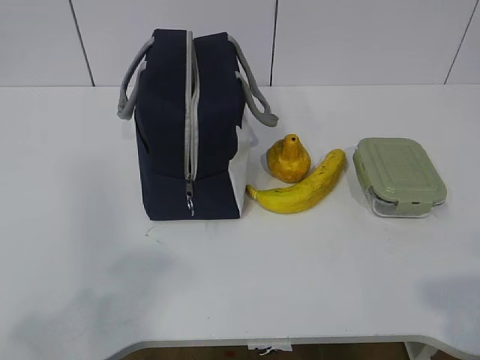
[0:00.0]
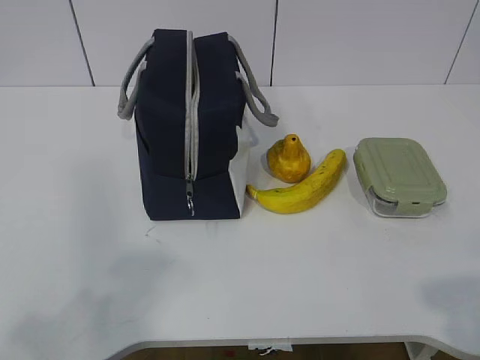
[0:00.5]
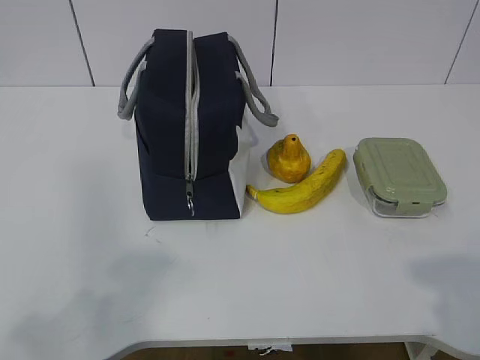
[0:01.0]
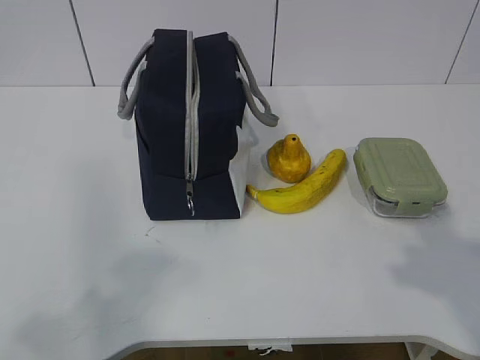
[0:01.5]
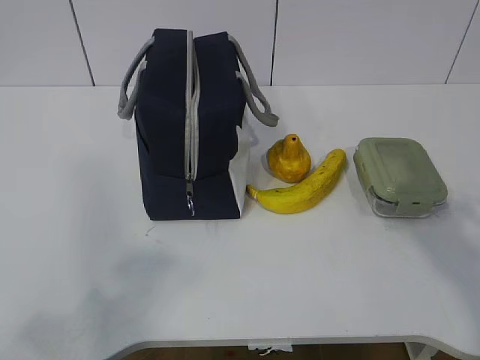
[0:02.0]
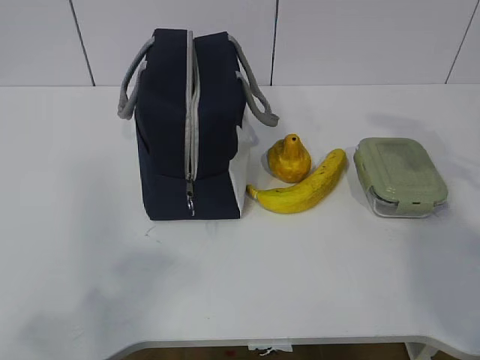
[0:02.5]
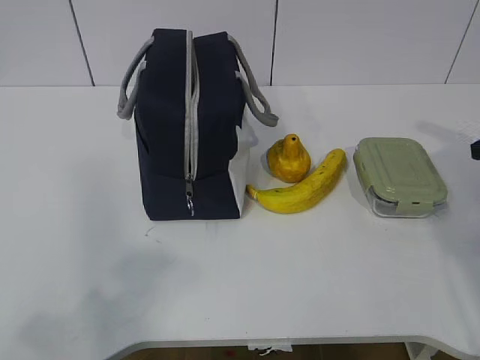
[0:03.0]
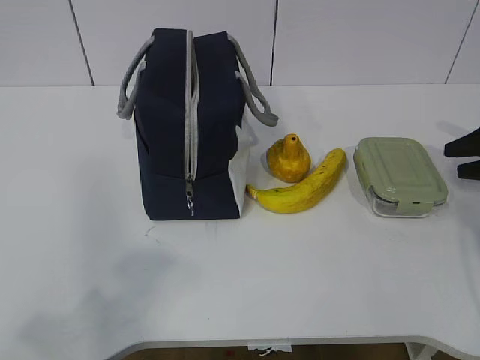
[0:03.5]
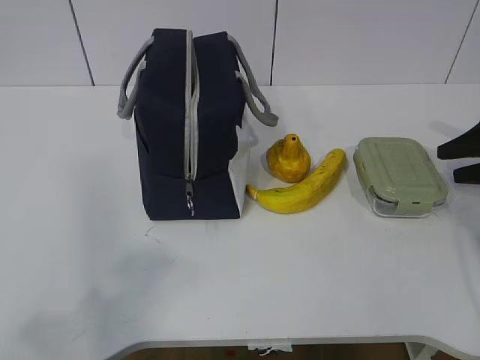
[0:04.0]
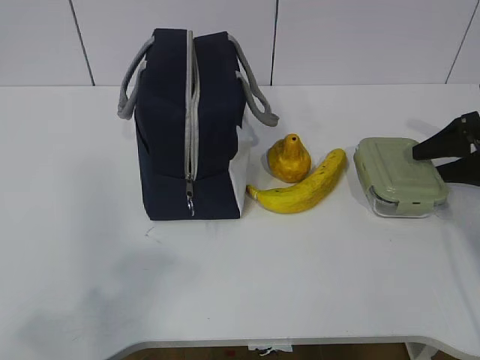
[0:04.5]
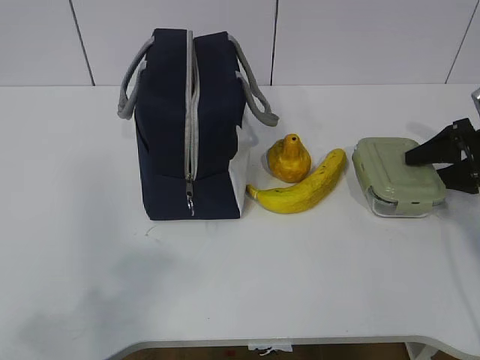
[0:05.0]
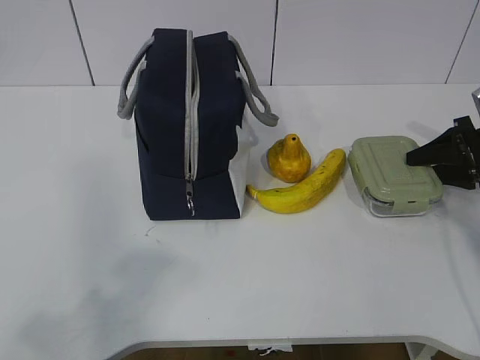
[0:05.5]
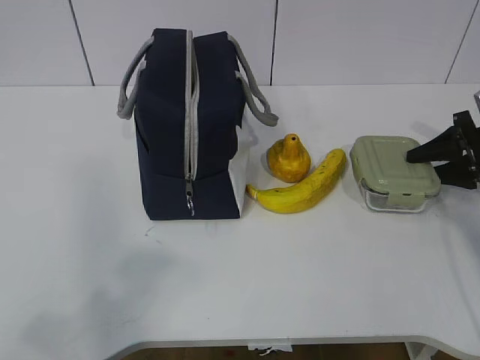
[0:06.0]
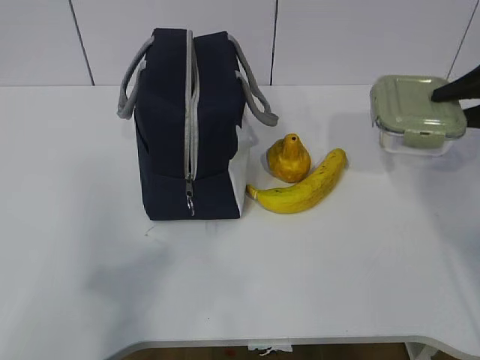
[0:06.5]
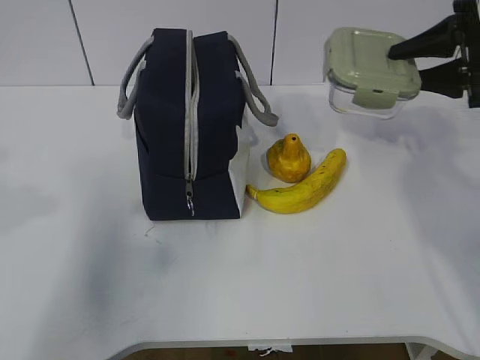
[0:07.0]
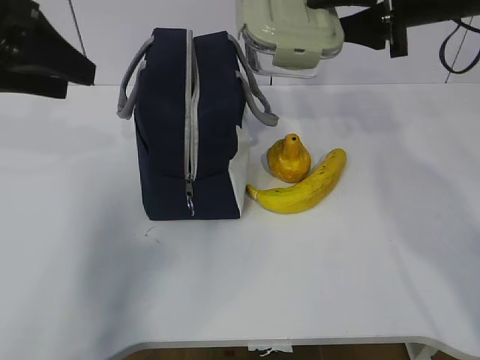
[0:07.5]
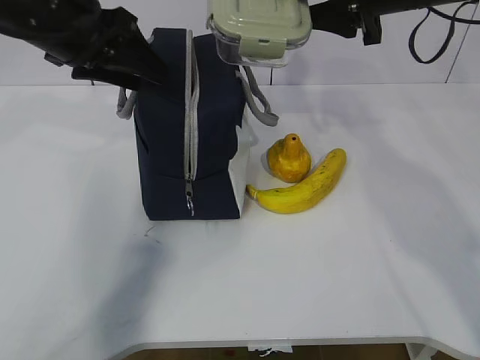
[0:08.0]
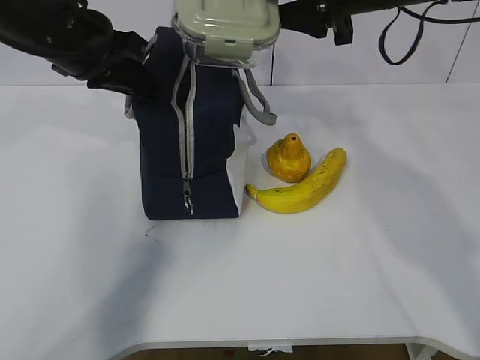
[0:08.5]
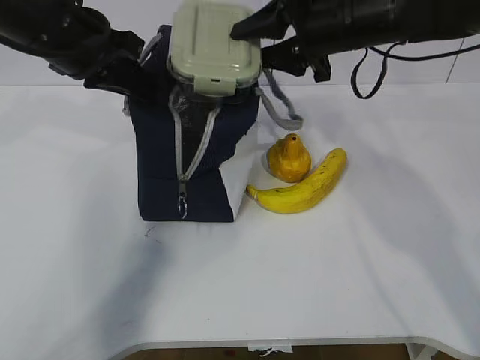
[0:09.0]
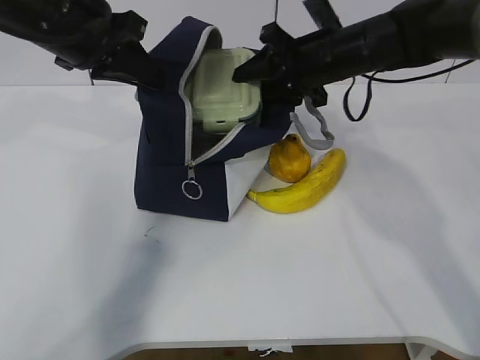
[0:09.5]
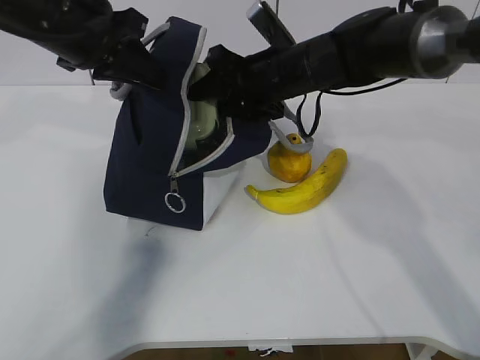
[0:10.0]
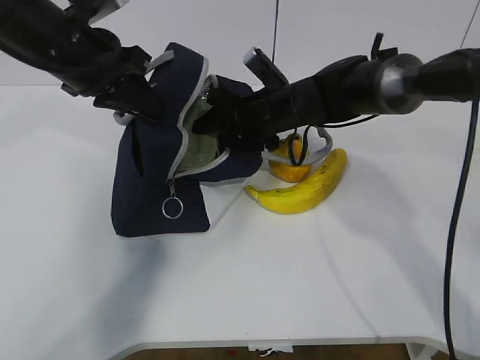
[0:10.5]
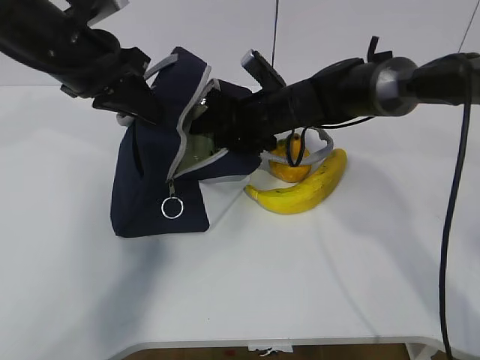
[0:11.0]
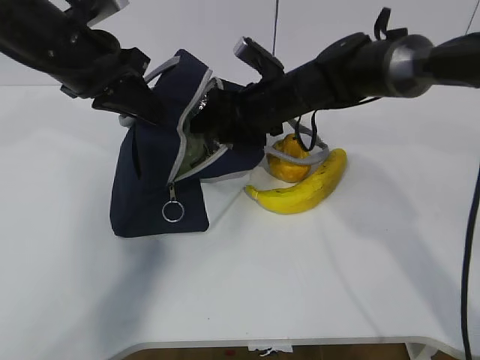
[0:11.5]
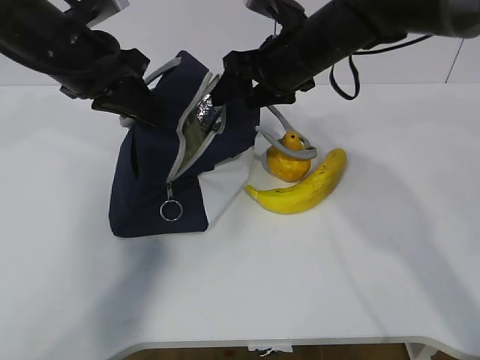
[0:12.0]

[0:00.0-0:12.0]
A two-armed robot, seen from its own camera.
Step, 0:00.0 to 0:04.0: Grab the lunch box with your right hand.
Step, 0:04.5 to 0:07.0: Grab the lunch bag with your left hand.
Step, 0:07.5 to 0:09.5: Place it into the bag with your right hand.
0:02.0 to 0:04.0: The right gripper travels forward, downward and to the right by about 30 cm.
0:04.0 to 0:06.0: There are only small adjustments of the grippers.
0:06.0 to 0:08.0: The right gripper travels to the left and upward by about 30 cm. The left gripper travels forward by approximately 35 cm, and opens its fingers.
0:08.0 to 0:10.0: The right gripper moves downward and to the left, some 15 cm, while the left gripper closes up.

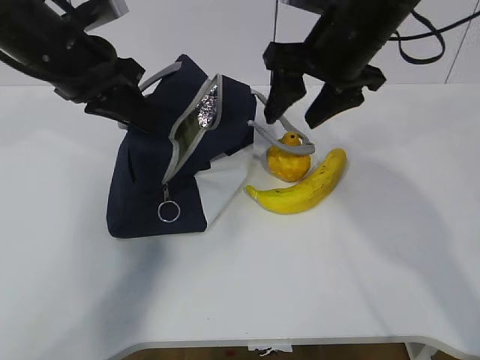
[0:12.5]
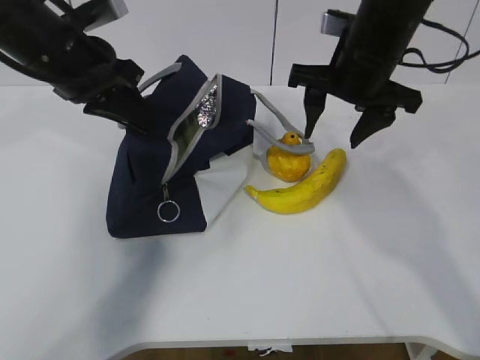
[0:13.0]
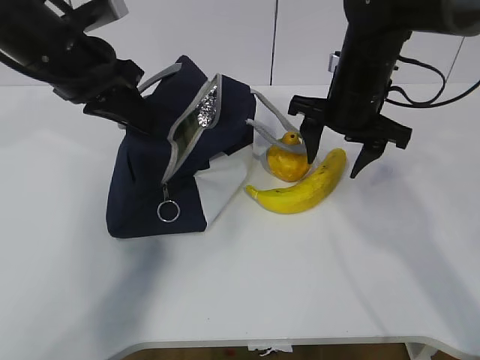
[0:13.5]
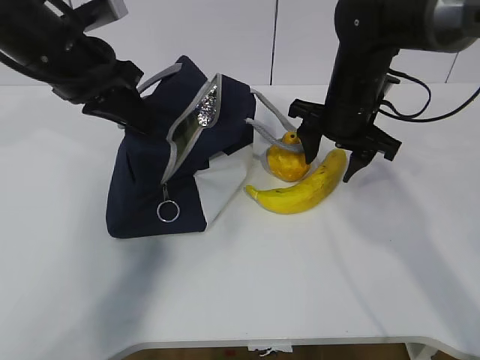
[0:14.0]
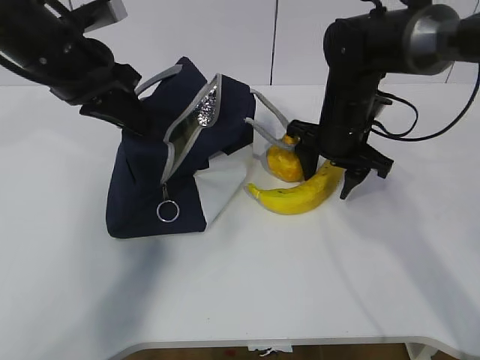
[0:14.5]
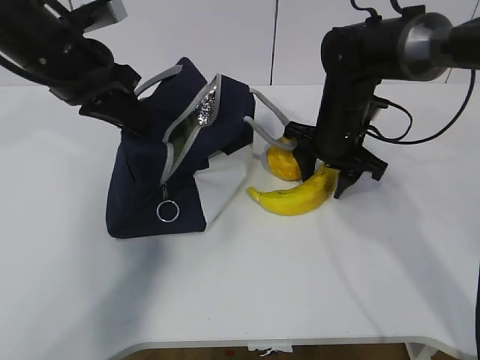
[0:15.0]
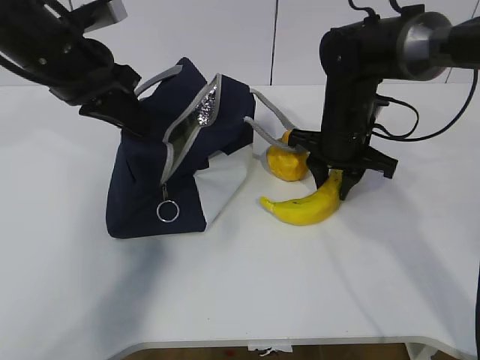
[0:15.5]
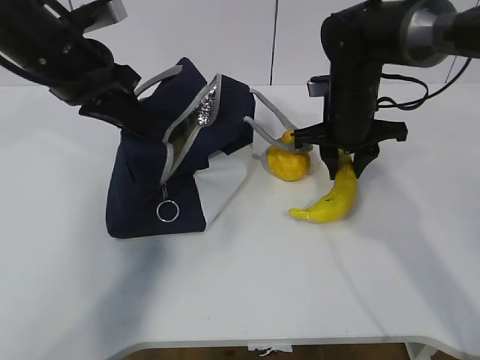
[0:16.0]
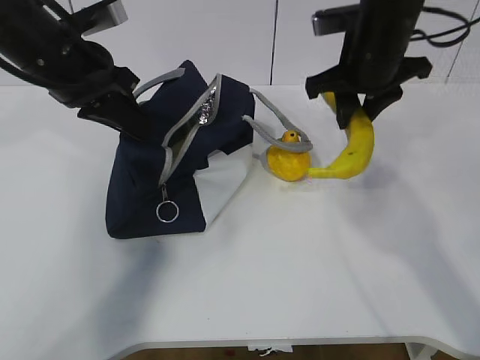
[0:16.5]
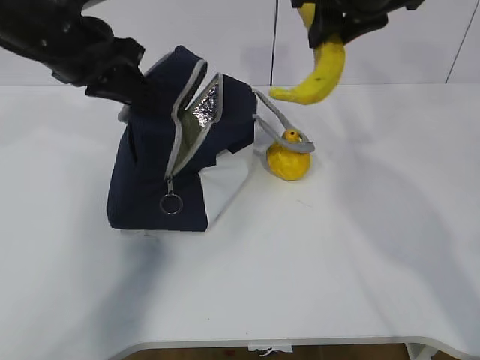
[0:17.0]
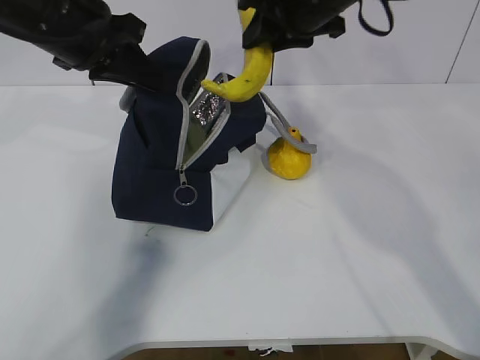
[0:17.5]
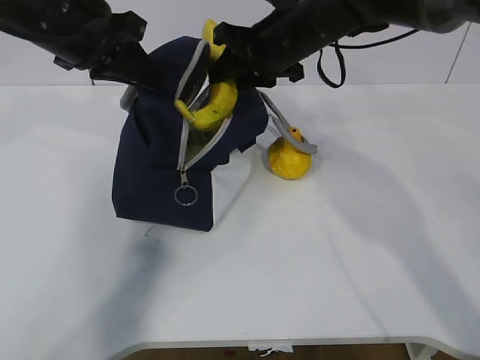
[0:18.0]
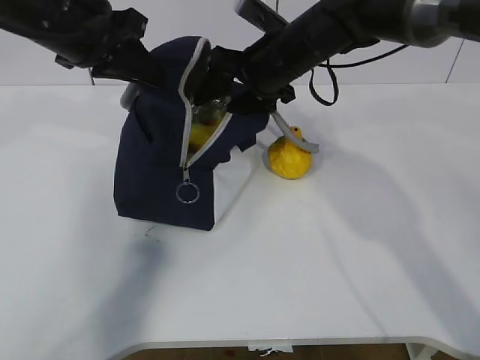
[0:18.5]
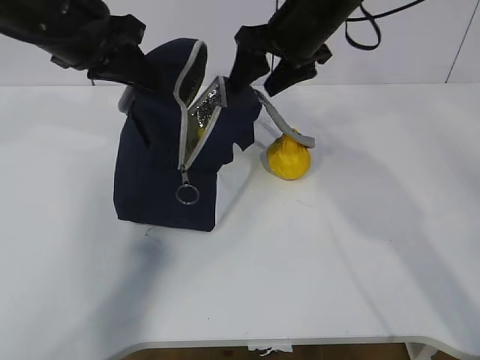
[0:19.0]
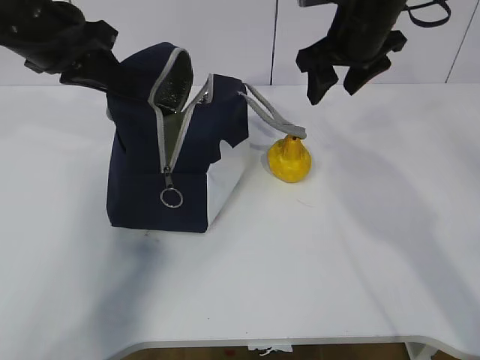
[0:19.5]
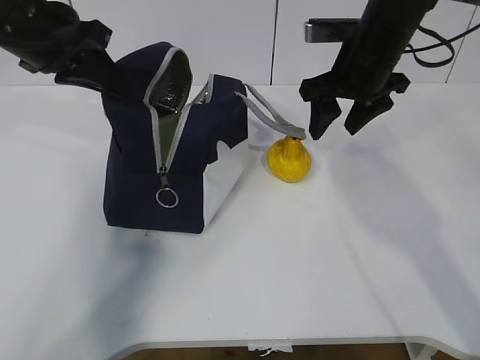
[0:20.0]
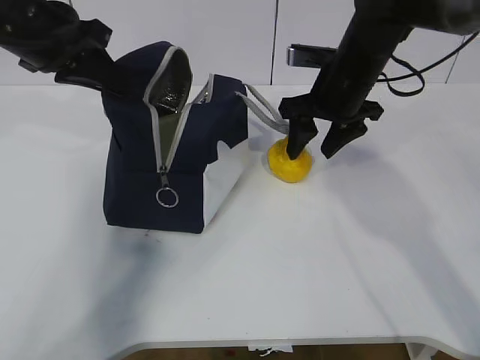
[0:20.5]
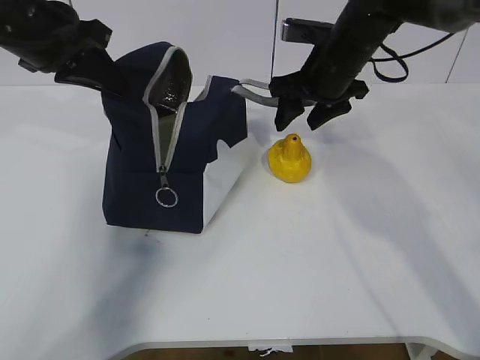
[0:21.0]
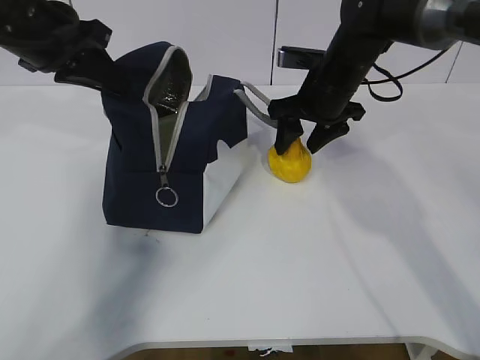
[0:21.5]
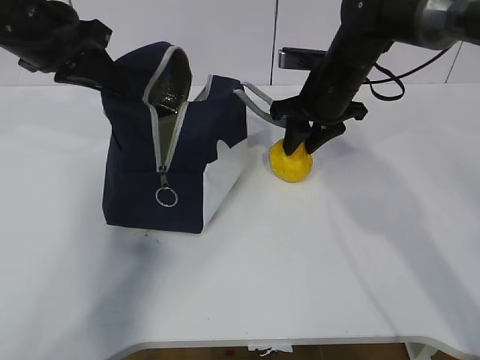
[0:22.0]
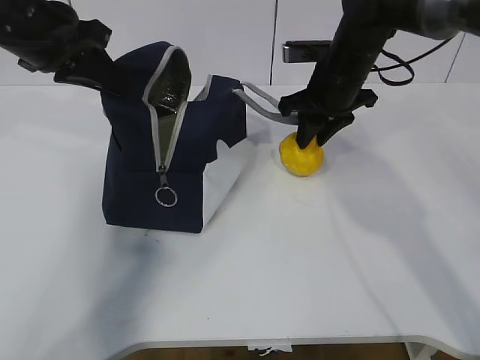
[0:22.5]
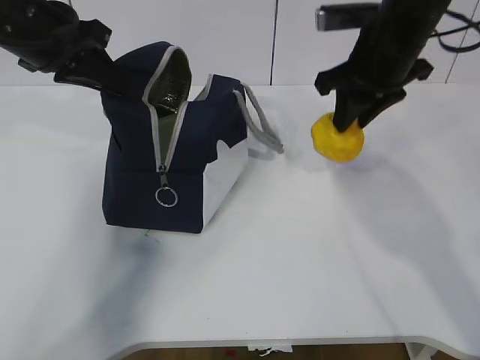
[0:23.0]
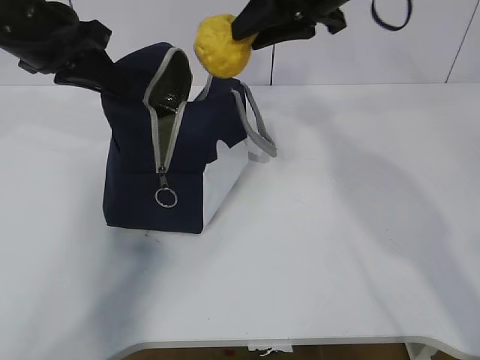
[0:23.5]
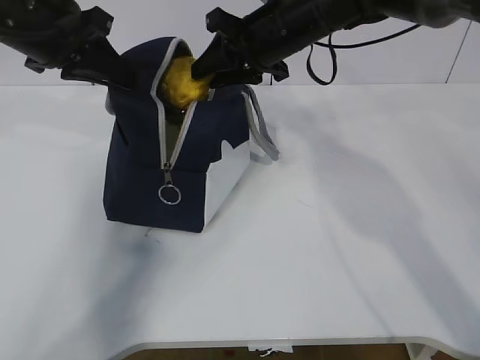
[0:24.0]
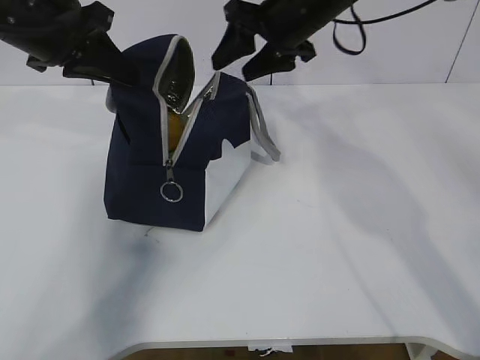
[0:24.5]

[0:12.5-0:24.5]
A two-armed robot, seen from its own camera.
Step, 0:13.0 to 0:15.0: Place it into the bag with your right hand.
Step, 0:15.5 to 0:18.0: Grab the pear with your right hand.
Step, 0:19.0 to 0:20.0: Secure the lunch bag with your left hand.
Step, 0:20.5 to 0:21.0: Grab the lunch bag with your right hand.
Step, 0:21.5 to 0:23.0: Move the lunch bag to the right.
0:12.5 to 0:14.5: The right gripper moves downward, approximately 10 cm.
0:14.5 to 0:16.5: The right gripper travels upward by about 10 cm, and closes.
0:16.5 to 0:18.5: The right gripper heads to the left, covering approximately 10 cm, reaches about 10 cm upward, then returns, and opens its fingers.
0:18.5 to 0:20.5: The right gripper shifts about 5 cm to the right.
0:20.5 to 0:22.5: The right gripper closes its fingers.
0:22.5 to 0:24.5: The right gripper moves upward, some 10 cm, and opens.

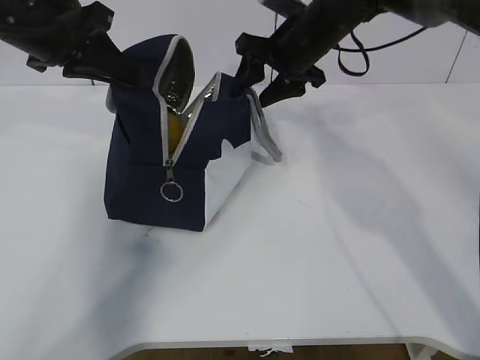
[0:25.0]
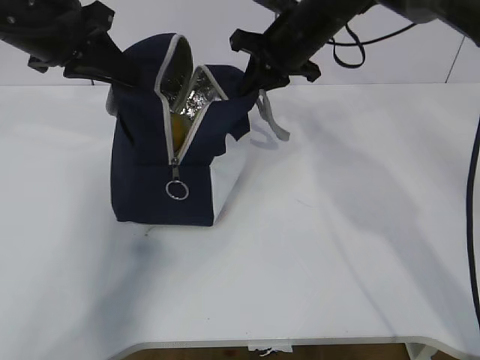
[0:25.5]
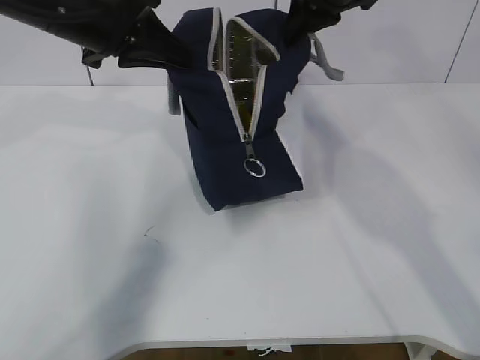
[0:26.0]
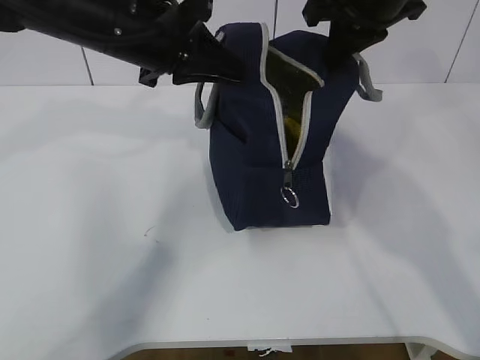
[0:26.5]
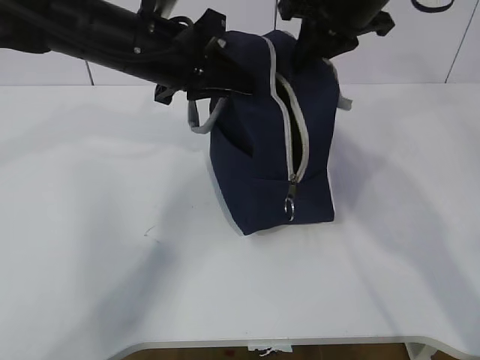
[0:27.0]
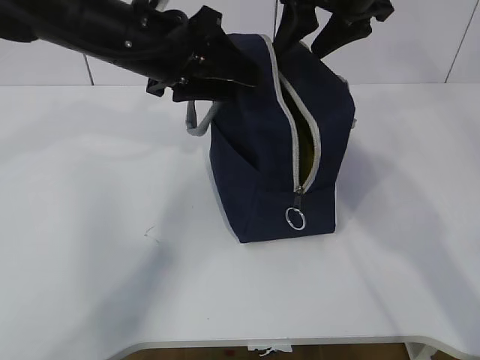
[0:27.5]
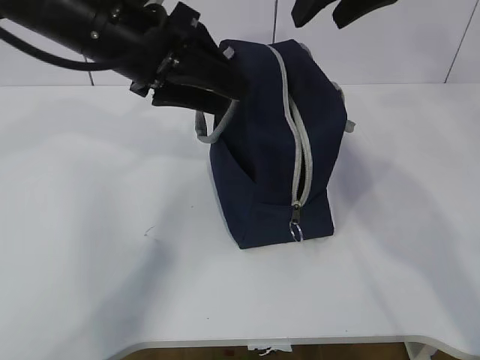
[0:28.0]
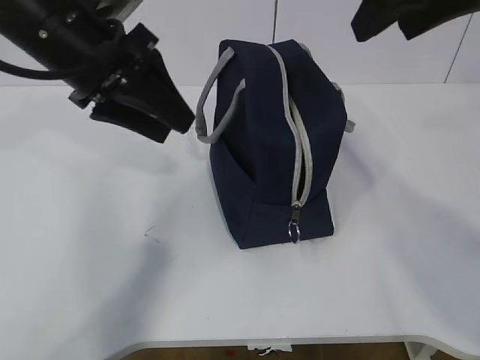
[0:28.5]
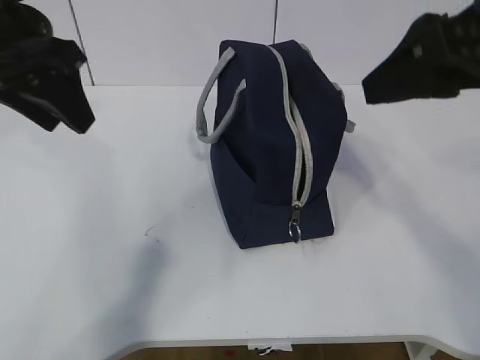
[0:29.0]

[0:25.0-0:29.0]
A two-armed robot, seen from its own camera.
0:25.0 to 0:27.0: The left gripper is displaced to the right by roughly 10 cm; the right gripper shifts roughly 10 cm upward and backward, and closes its fingers.
0:27.0 to 0:29.0: The left gripper travels to the left, upward and backward by some 15 cm, and opens, while the right gripper heads backward, covering roughly 20 cm, and opens.
